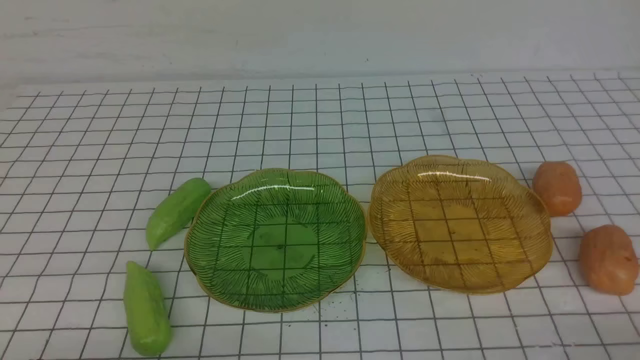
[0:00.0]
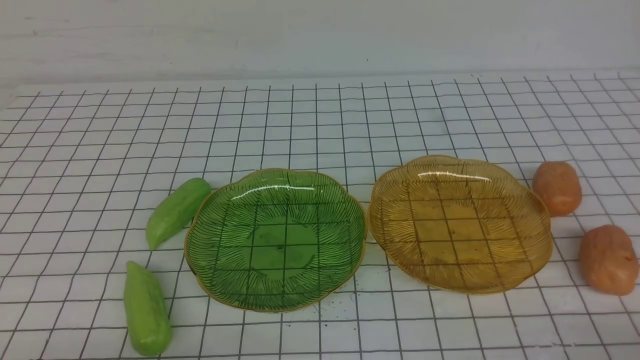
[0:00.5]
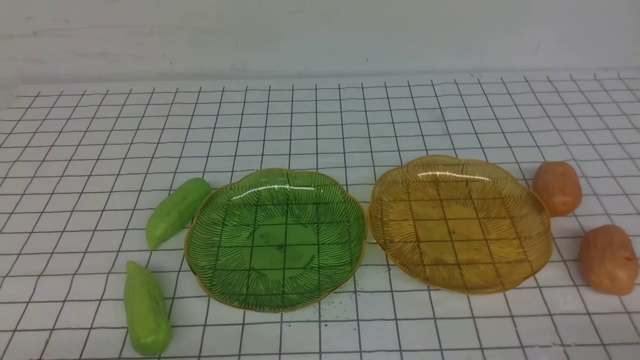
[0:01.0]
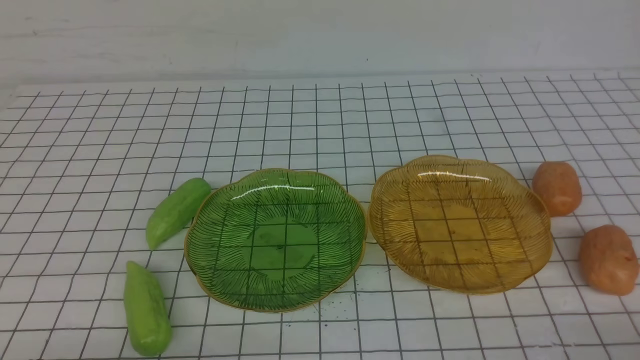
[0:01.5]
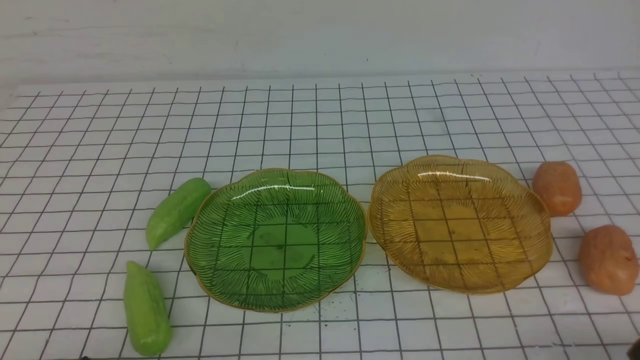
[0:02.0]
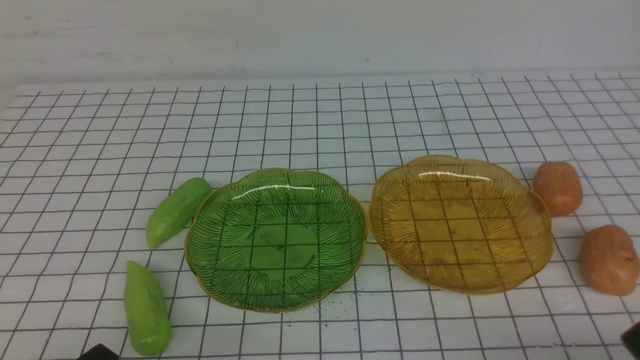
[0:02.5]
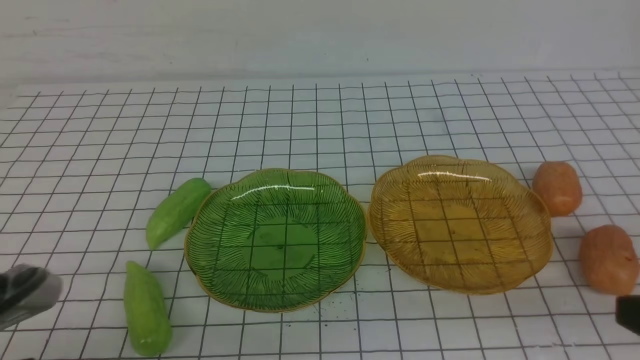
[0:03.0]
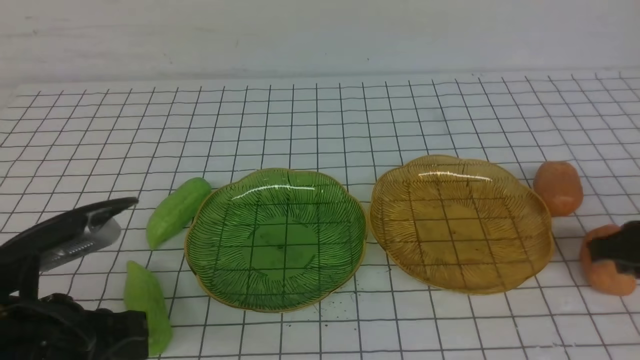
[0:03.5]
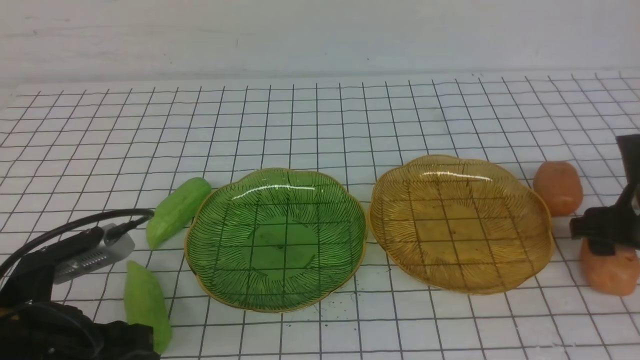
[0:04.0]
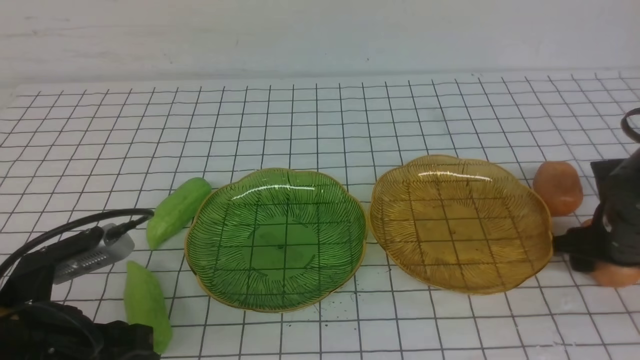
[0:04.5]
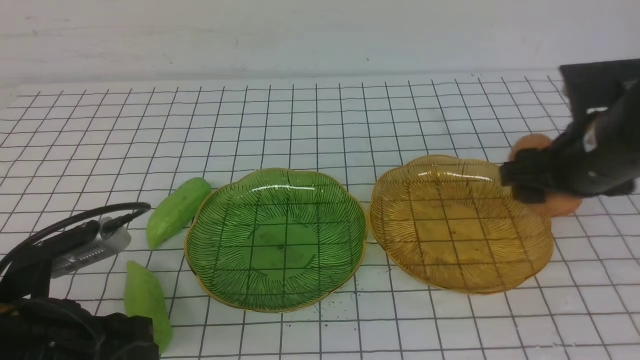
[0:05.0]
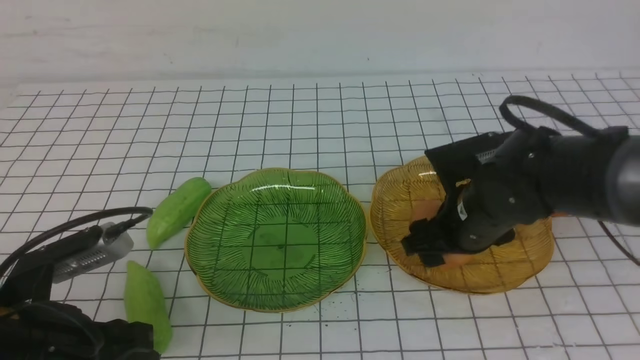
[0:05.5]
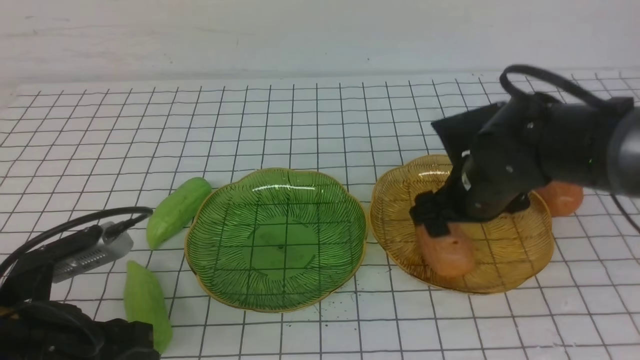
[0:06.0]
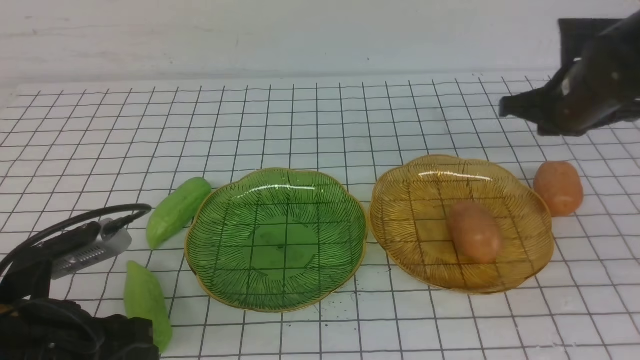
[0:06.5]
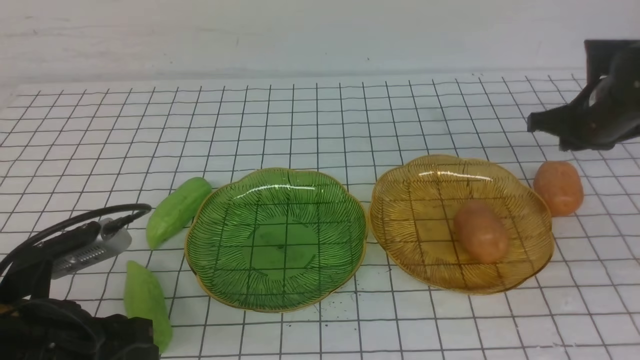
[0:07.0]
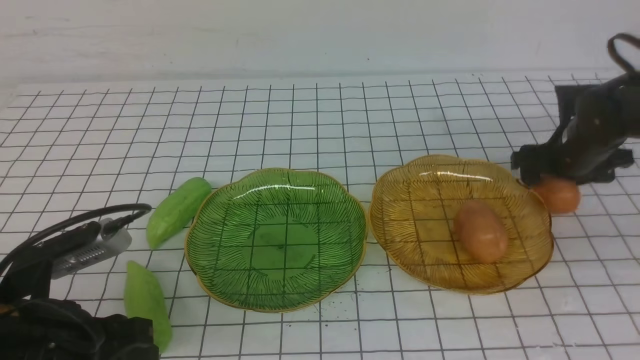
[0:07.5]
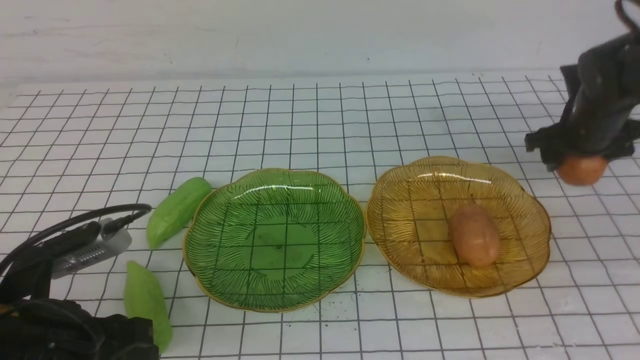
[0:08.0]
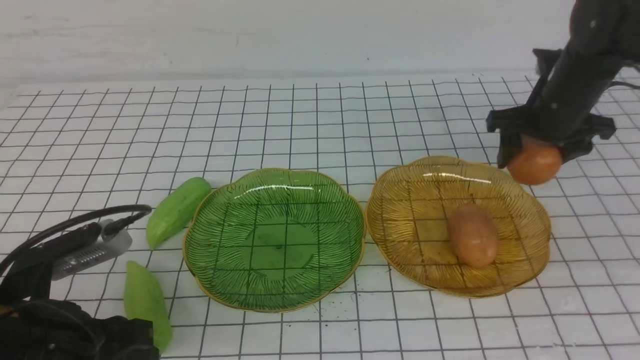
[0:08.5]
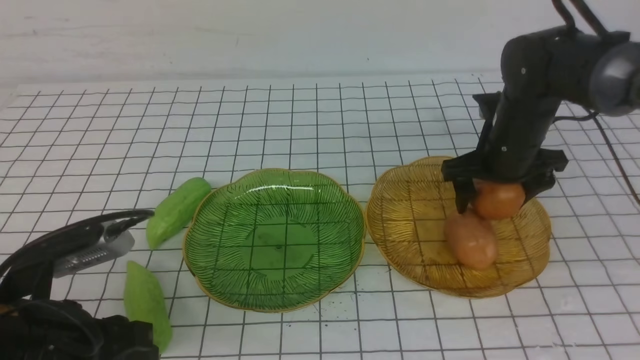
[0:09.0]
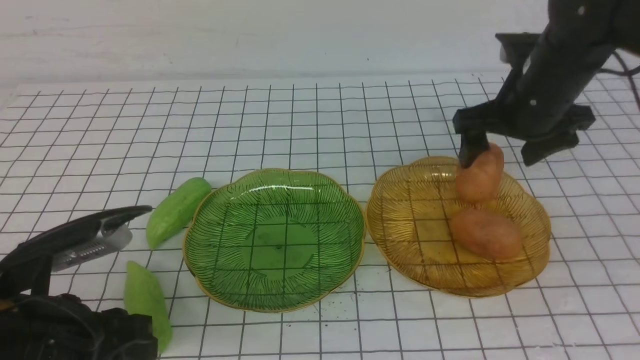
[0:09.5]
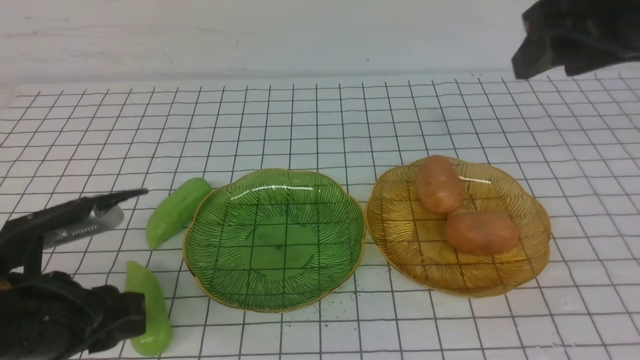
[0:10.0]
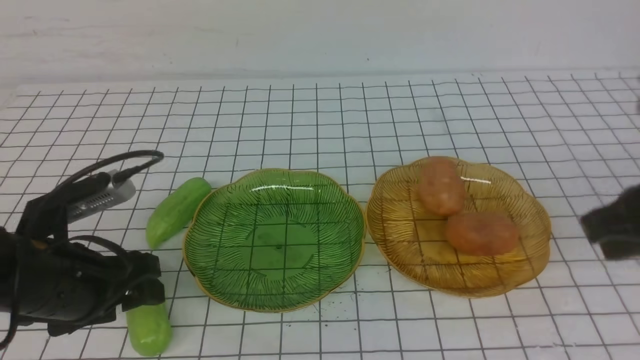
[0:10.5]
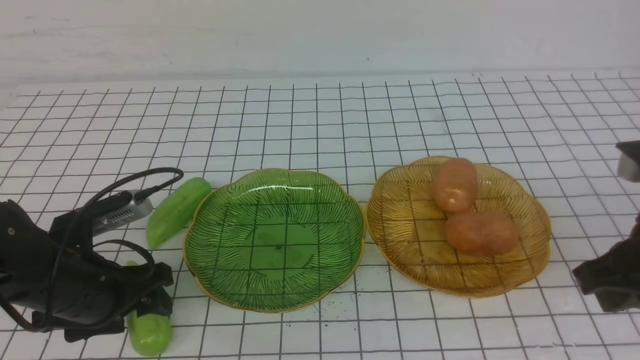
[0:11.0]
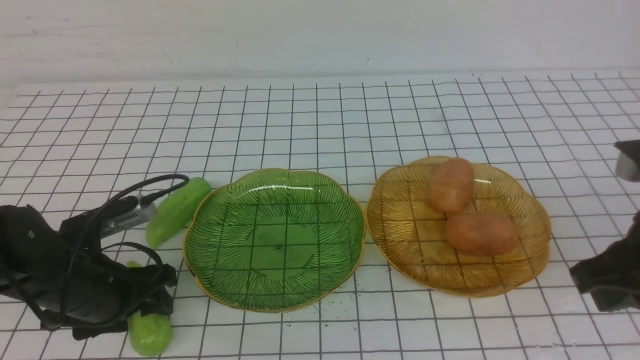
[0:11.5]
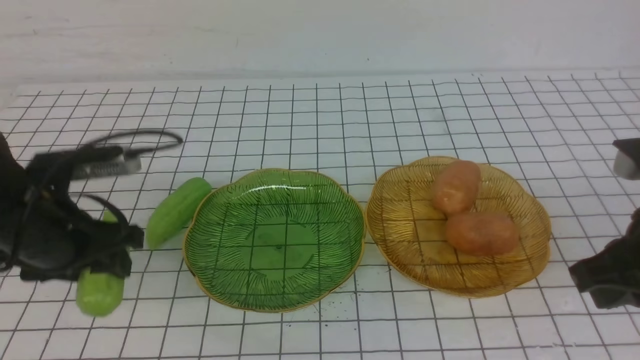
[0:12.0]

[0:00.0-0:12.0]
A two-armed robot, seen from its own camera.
Step, 0:00.0 to 0:06.0: Grab a potato with your right arm and put it on the right plate.
Step, 0:06.5 to 0:09.5: Grab a potato with your right arm and put it on the right plate.
0:02.0 to 0:04.0: The right gripper moves forward, roughly 25 cm, and opens; the left gripper shifts approximately 10 cm forward and upward, and opens its fingers.
0:04.0 to 0:06.0: The right gripper moves to the left, approximately 15 cm.
0:06.0 to 0:08.0: The right gripper heads to the right and forward, covering some 20 cm, and closes and opens again.
0:08.0 to 0:10.0: The right gripper shifts approximately 25 cm upward, backward and to the left.
0:10.0 to 0:12.0: The left gripper heads forward, covering roughly 10 cm, while the right gripper goes some 15 cm downward and backward, and closes.

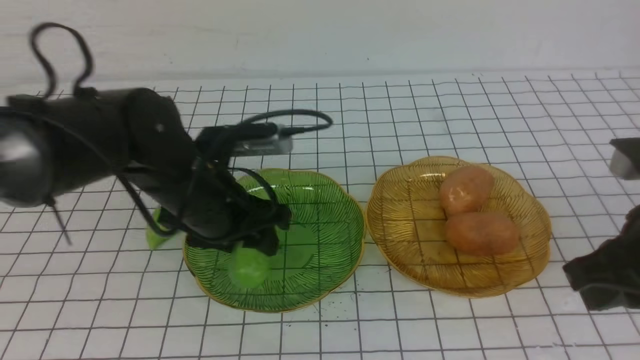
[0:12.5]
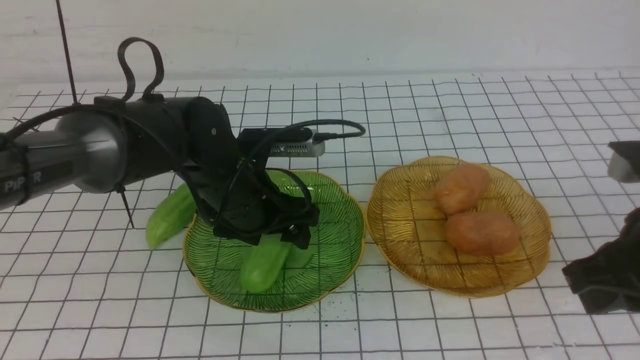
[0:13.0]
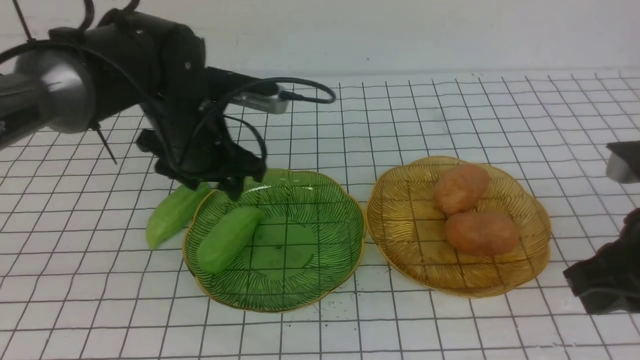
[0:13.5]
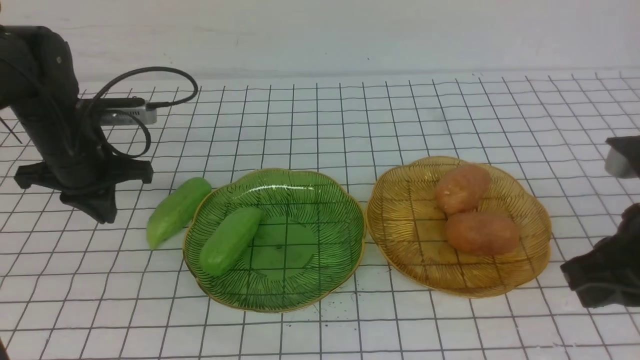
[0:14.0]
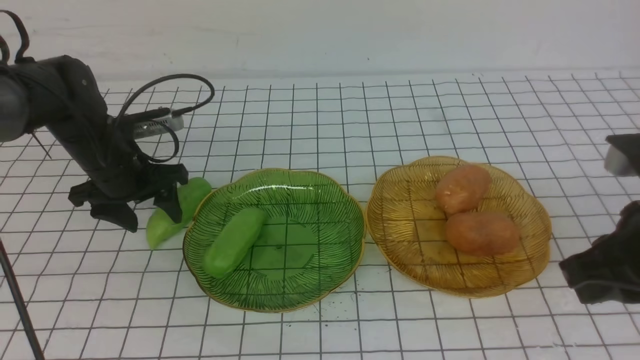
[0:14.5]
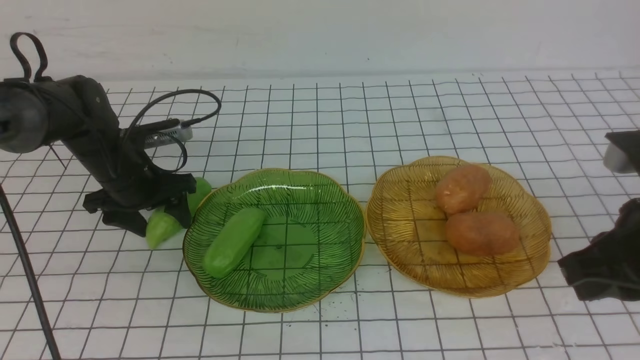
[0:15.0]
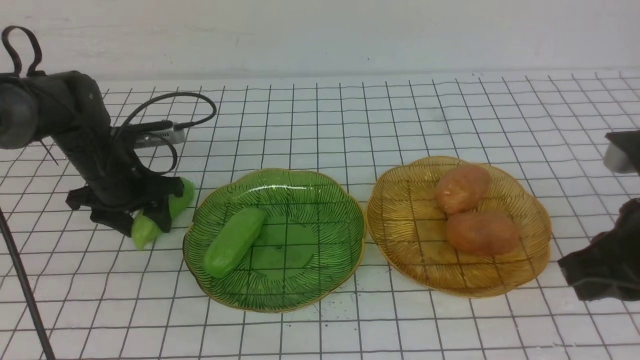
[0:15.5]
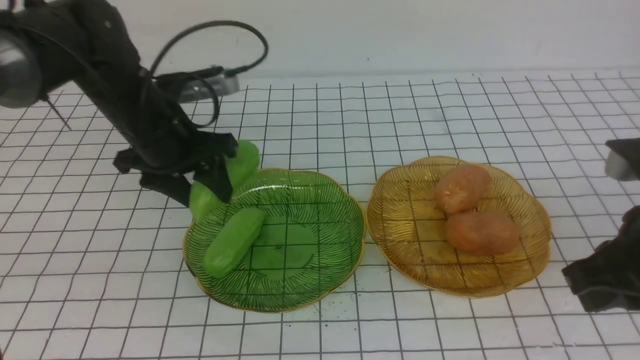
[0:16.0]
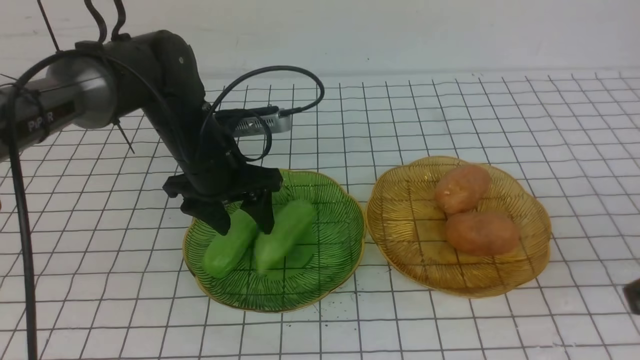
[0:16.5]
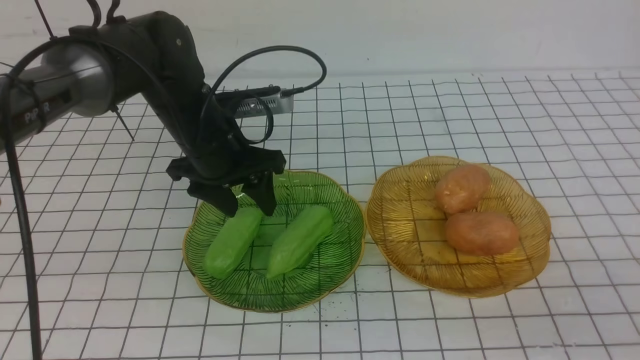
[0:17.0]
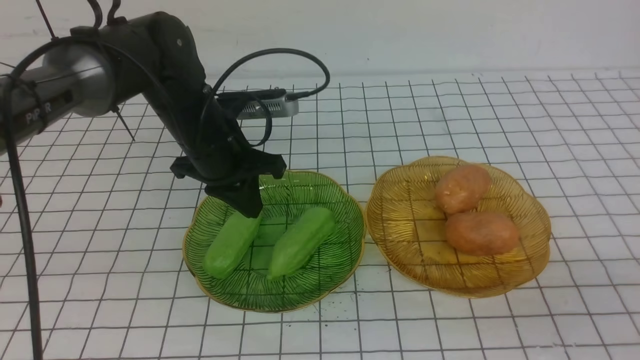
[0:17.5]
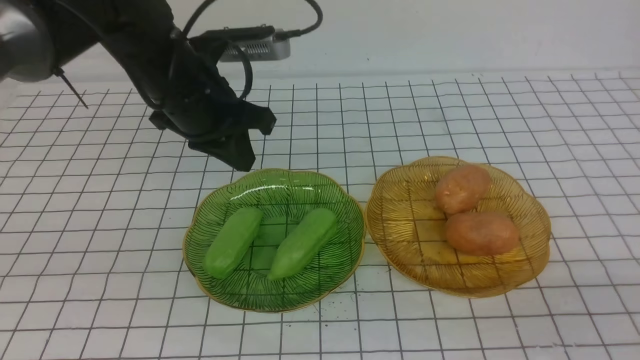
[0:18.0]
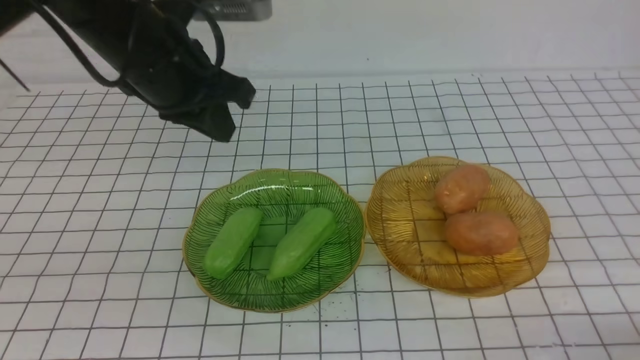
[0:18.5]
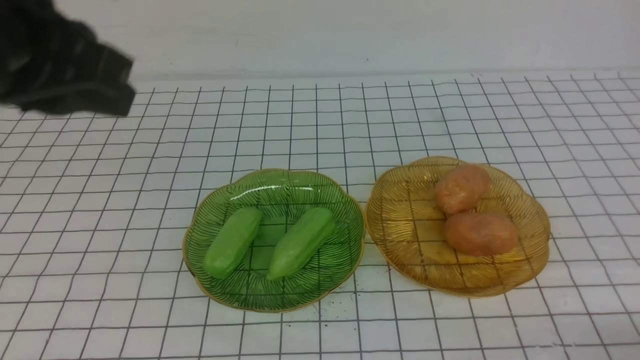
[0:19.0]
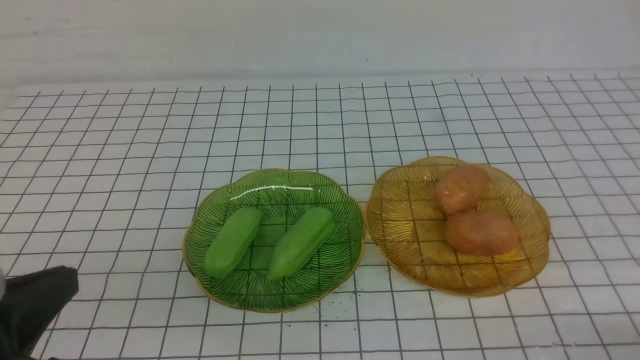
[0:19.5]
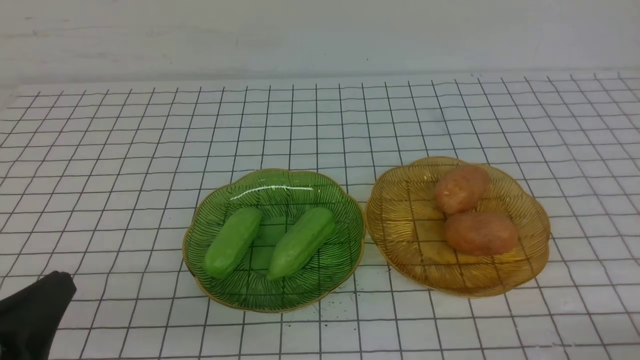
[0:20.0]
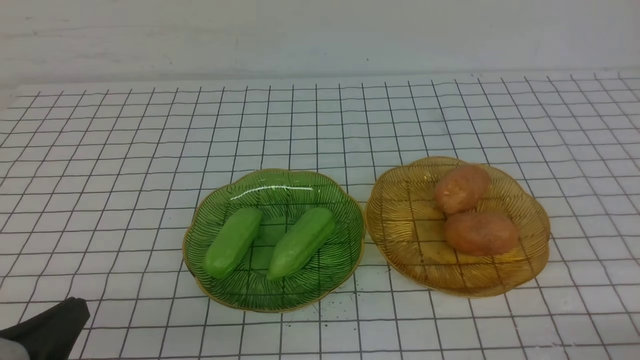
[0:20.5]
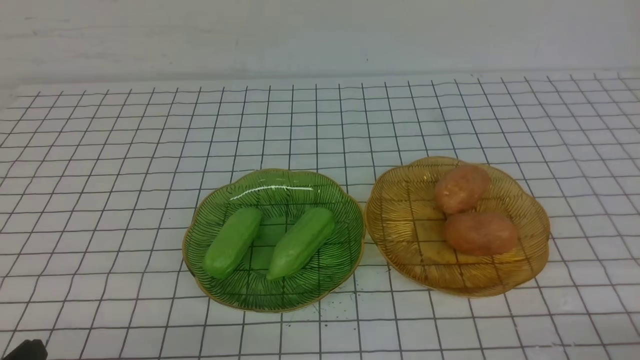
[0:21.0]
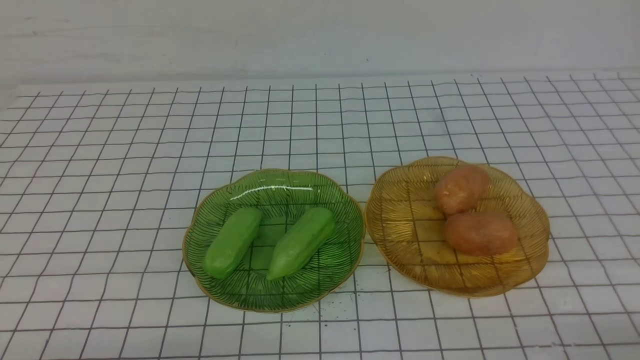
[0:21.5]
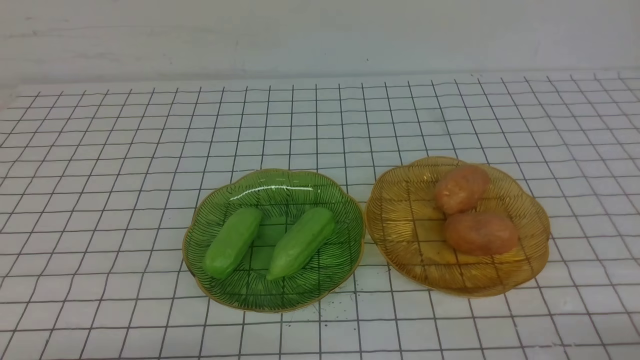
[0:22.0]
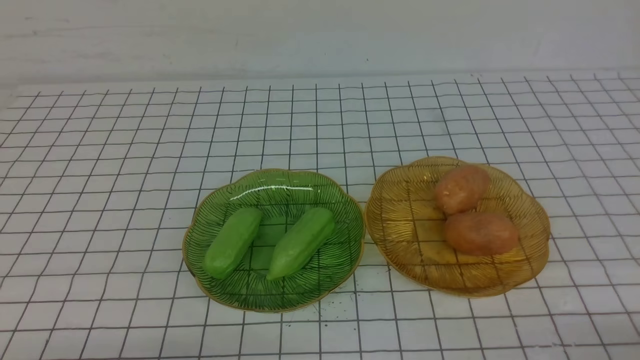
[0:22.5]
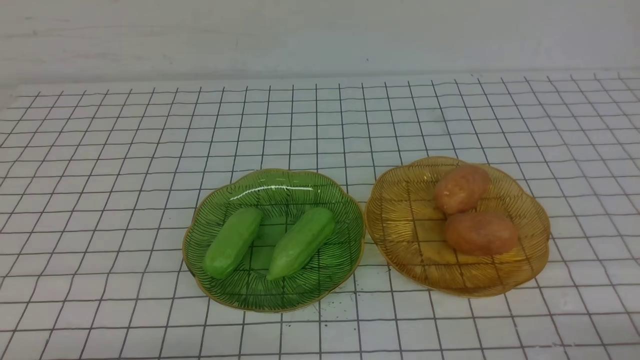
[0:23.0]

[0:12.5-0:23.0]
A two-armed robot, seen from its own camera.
Step, 0:12.5 to 0:16.5: use the left arm to grab a chayote and put it into the left plate.
0:12.5 to 0:14.5: The left gripper is displaced to the left and forward by about 15 cm, and closes, then reopens.
0:14.5 to 0:16.5: The left gripper shifts approximately 10 cm to the right. Meanwhile the right gripper heads backward, covering about 10 cm.
0:16.5 to 0:19.0: The right gripper moves downward, about 15 cm. The left gripper goes about 30 cm upward and backward, and closes up.
0:19.0 to 0:21.0: The left gripper travels downward and backward by some 30 cm.
